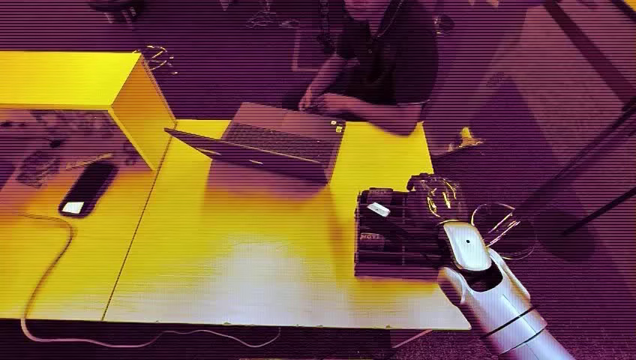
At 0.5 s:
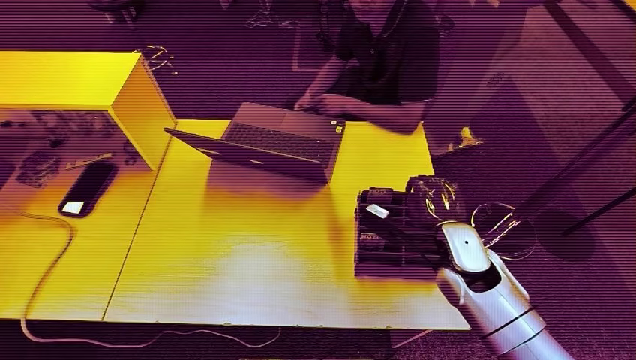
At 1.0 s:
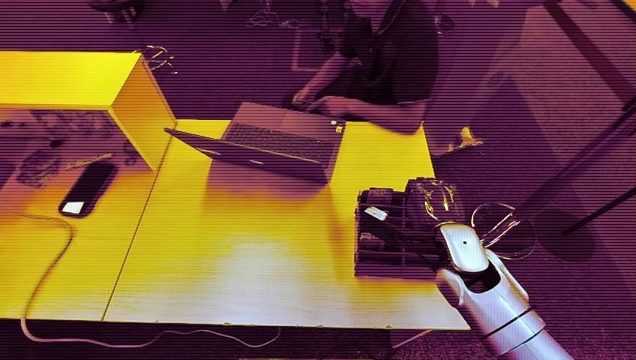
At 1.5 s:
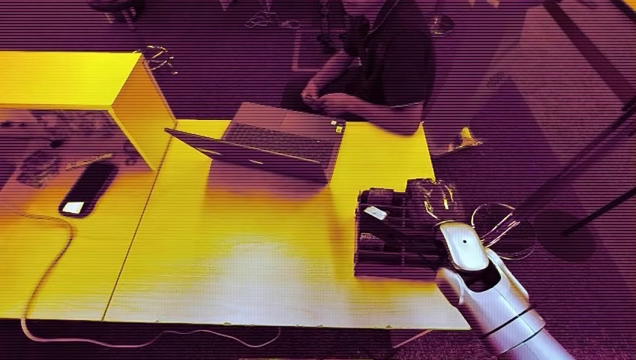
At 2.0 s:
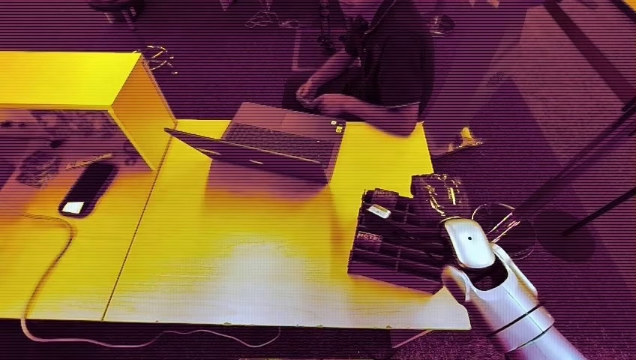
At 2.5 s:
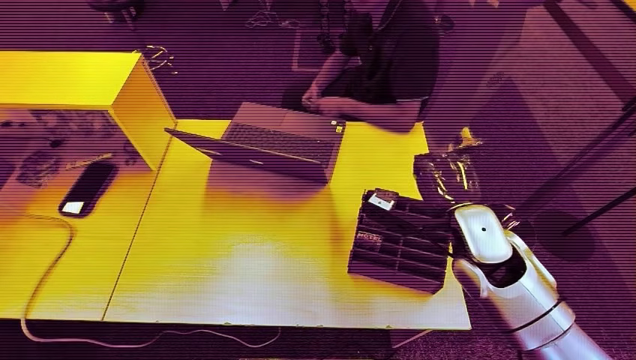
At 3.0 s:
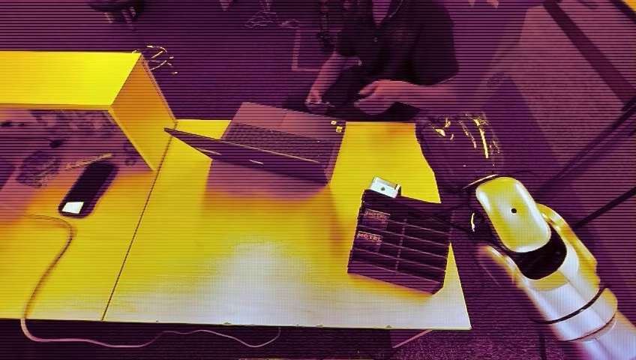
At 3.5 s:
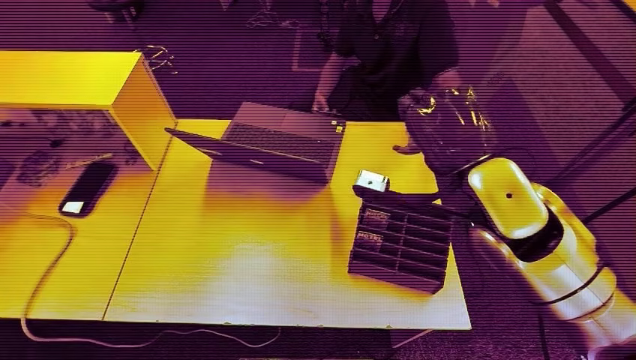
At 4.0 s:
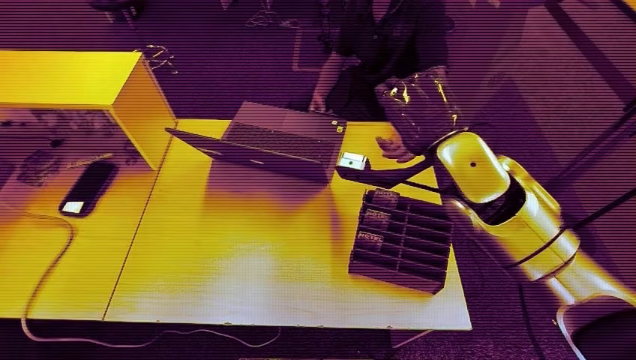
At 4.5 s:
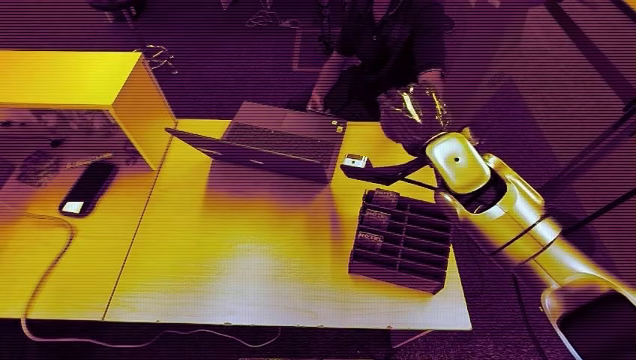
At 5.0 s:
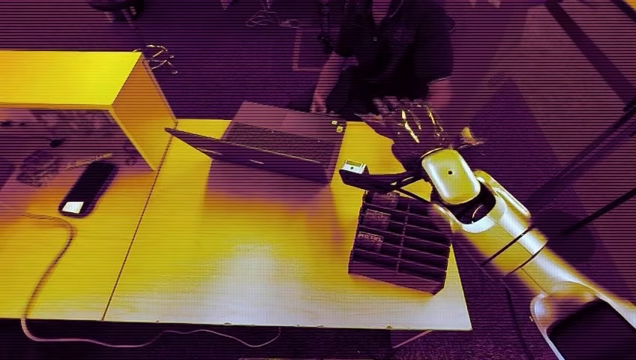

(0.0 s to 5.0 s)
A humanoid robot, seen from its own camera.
Step, 0.0 s - 2.5 s: Pick up the key card from the card box.
Step, 3.0 s - 5.0 s: Hand the key card to the target.
2.5 s - 5.0 s: The right hand goes some 5 cm forward.

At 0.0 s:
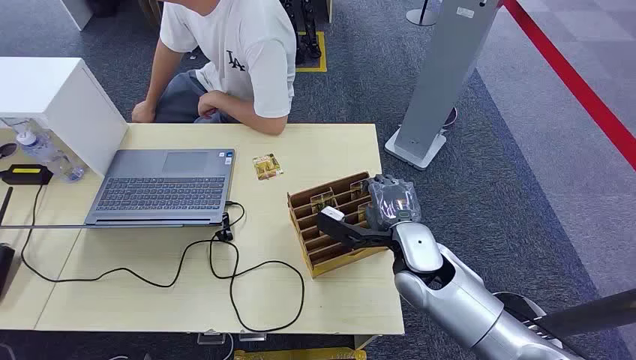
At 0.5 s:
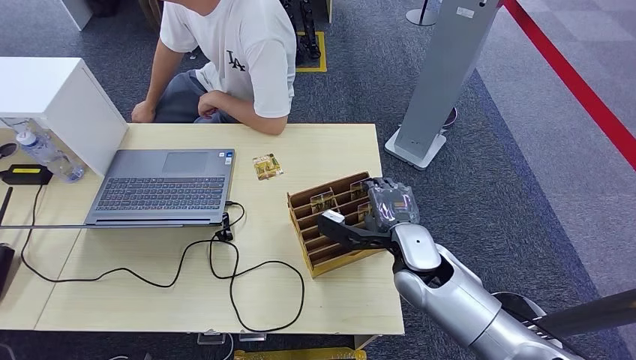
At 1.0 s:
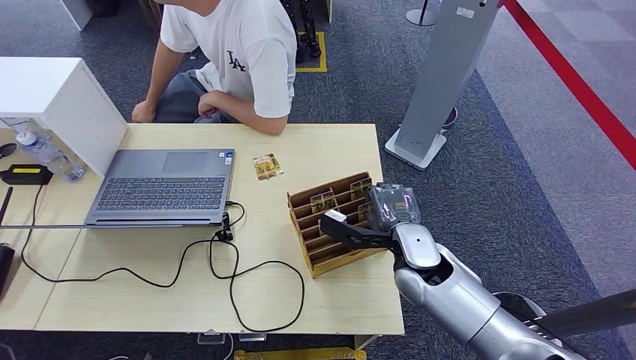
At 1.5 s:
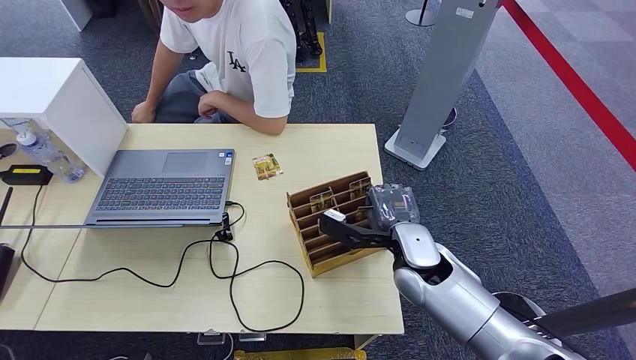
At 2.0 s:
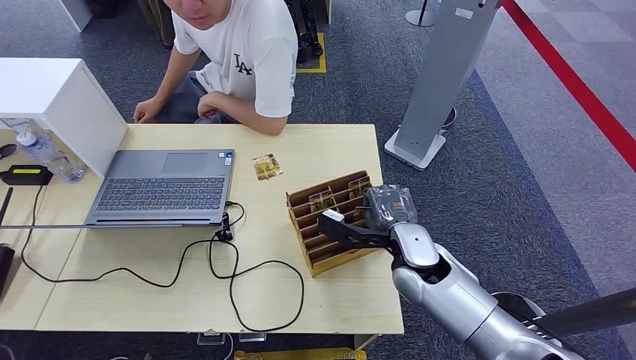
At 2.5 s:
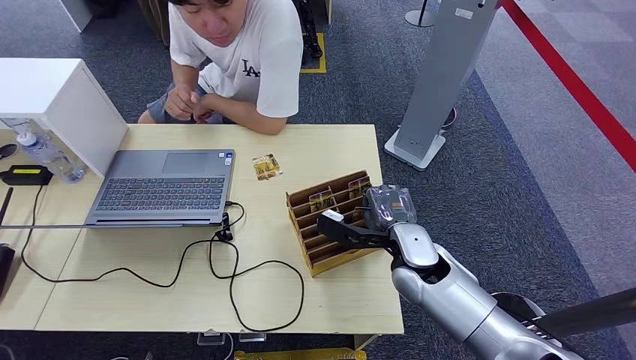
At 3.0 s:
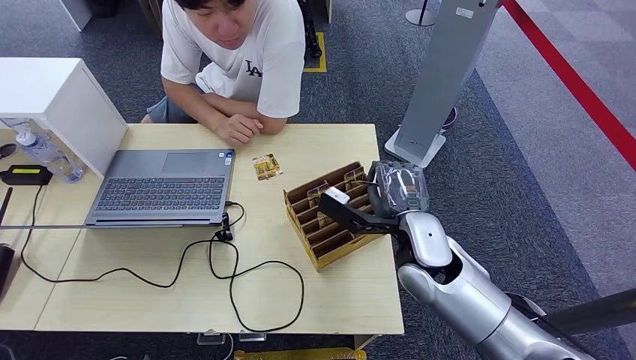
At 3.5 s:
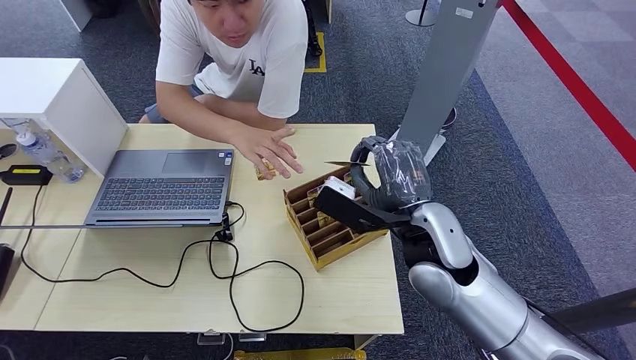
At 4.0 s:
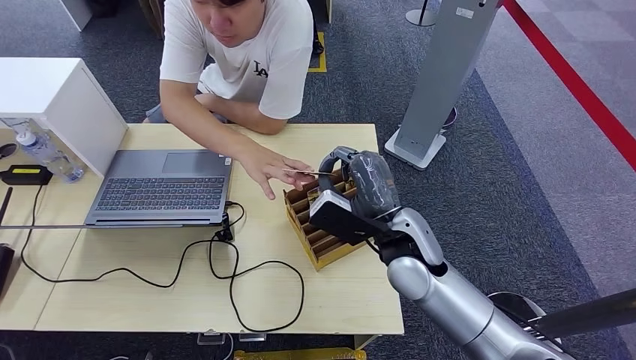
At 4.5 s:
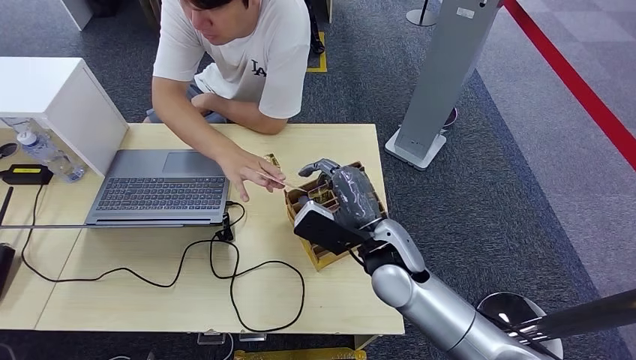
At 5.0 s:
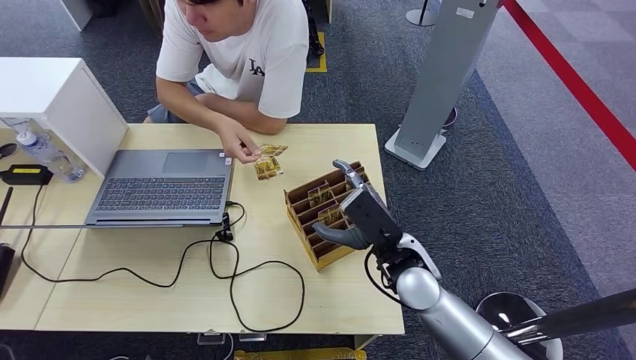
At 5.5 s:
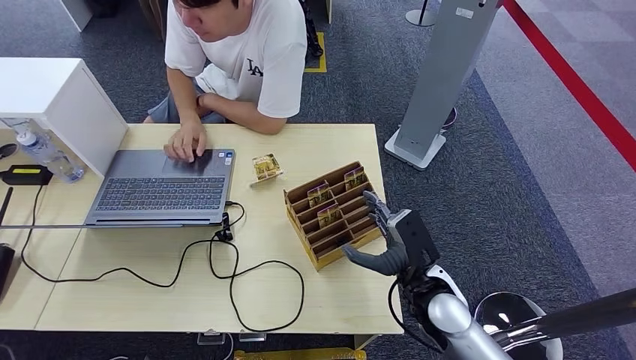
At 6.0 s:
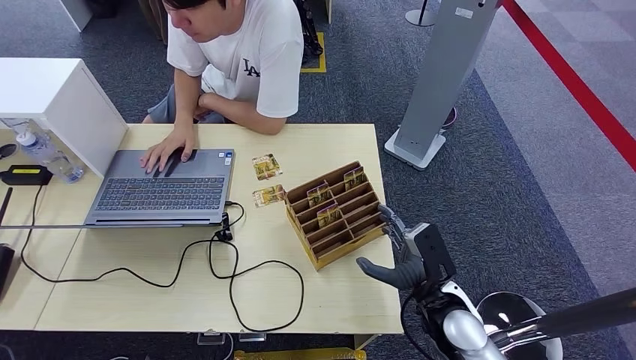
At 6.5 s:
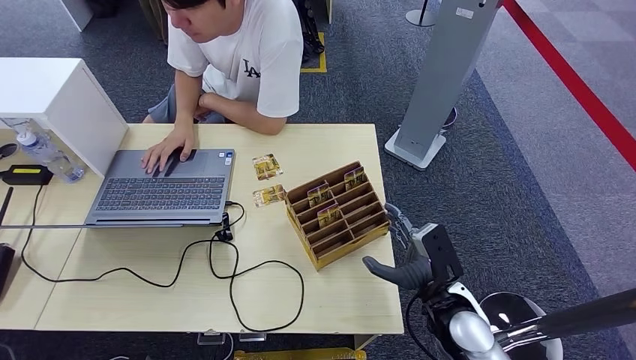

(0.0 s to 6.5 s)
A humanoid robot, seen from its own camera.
Step, 0.0 s - 2.5 s: Pick up the key card from the card box.
Step, 3.0 s - 6.0 s: Hand the key card to the target.
4.5 s - 6.5 s: The right hand moves to the right, downward and backward, about 15 cm.
